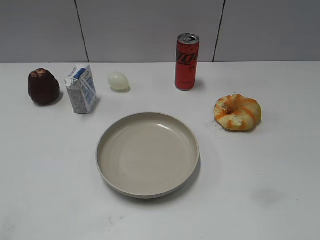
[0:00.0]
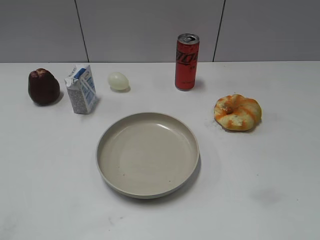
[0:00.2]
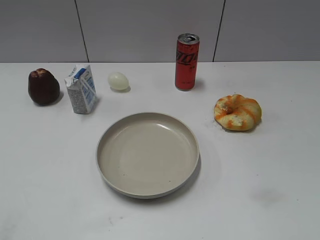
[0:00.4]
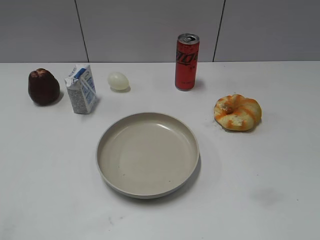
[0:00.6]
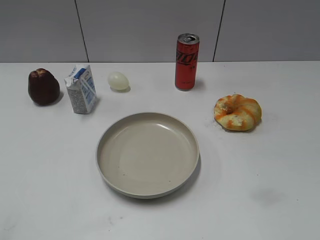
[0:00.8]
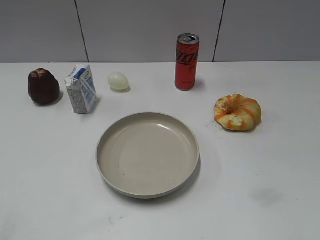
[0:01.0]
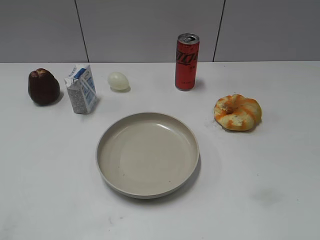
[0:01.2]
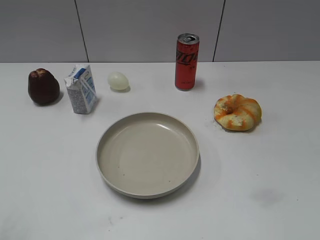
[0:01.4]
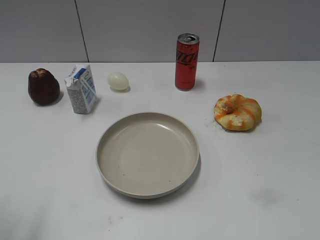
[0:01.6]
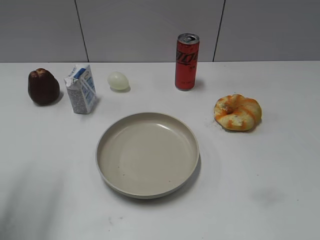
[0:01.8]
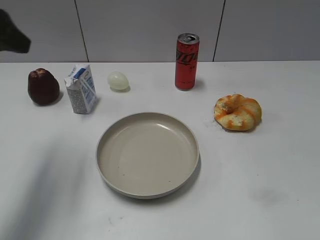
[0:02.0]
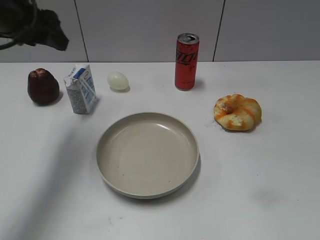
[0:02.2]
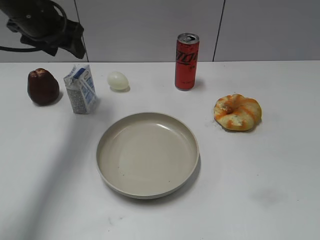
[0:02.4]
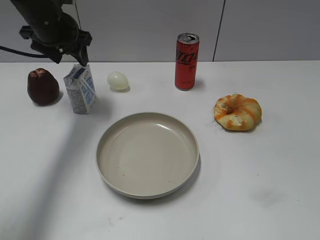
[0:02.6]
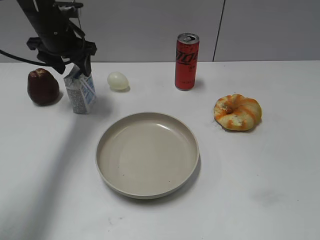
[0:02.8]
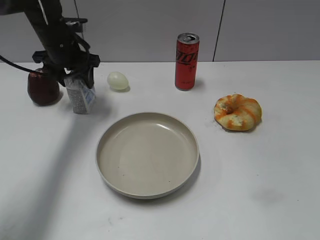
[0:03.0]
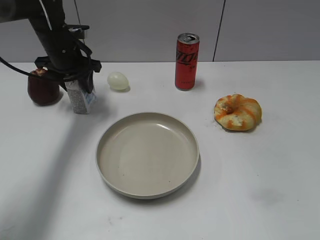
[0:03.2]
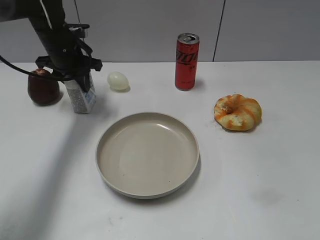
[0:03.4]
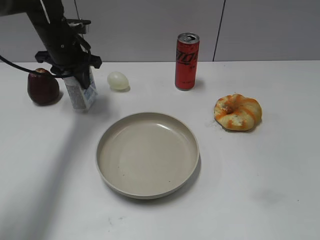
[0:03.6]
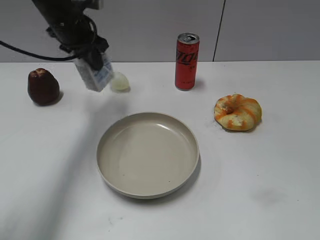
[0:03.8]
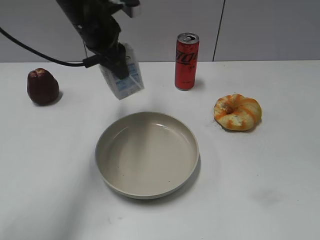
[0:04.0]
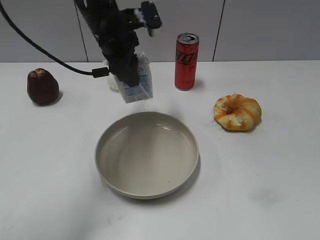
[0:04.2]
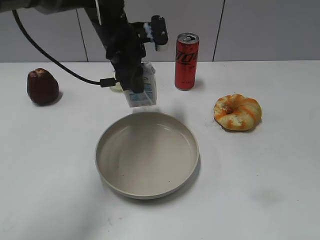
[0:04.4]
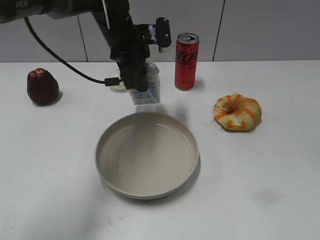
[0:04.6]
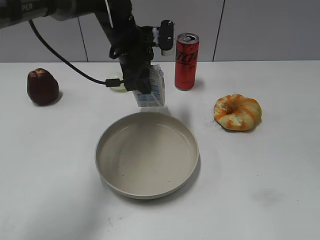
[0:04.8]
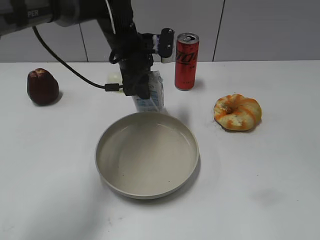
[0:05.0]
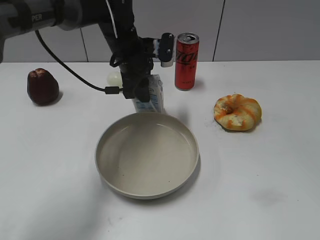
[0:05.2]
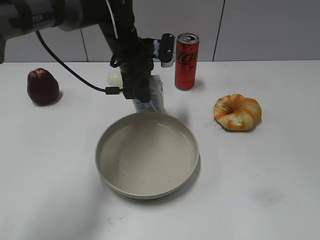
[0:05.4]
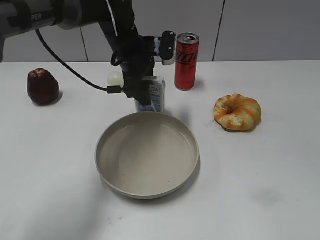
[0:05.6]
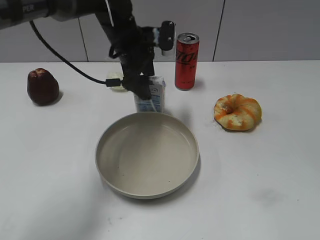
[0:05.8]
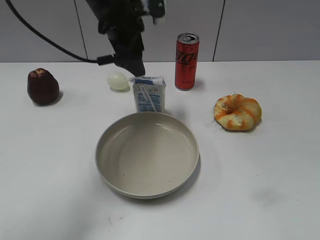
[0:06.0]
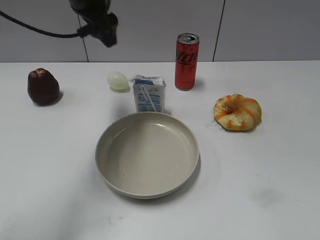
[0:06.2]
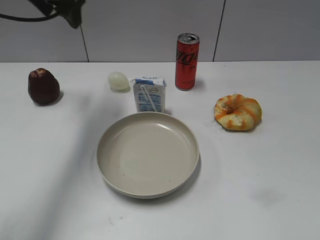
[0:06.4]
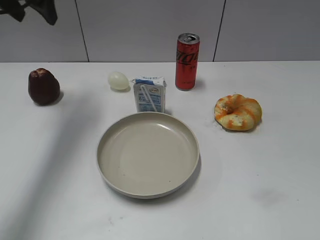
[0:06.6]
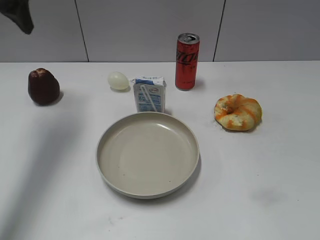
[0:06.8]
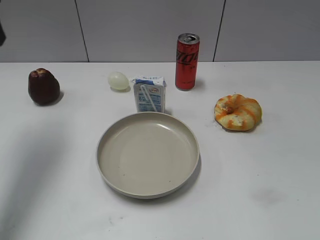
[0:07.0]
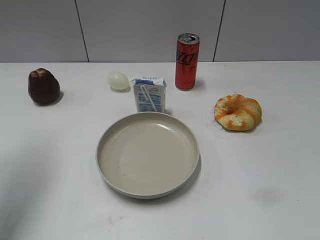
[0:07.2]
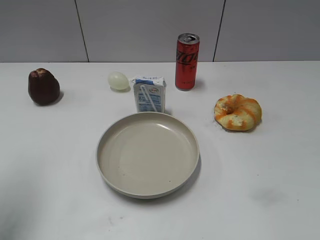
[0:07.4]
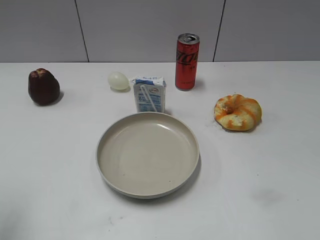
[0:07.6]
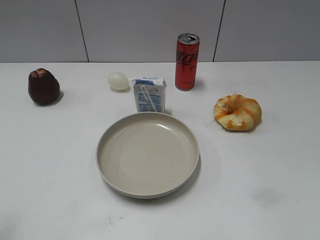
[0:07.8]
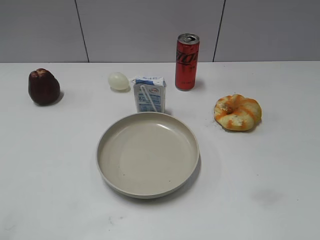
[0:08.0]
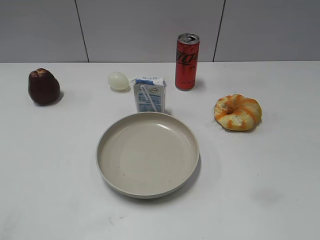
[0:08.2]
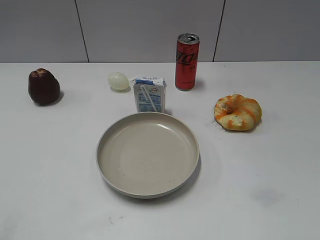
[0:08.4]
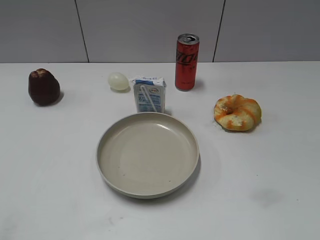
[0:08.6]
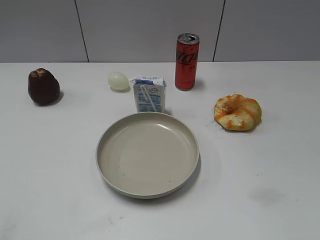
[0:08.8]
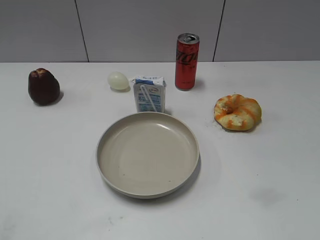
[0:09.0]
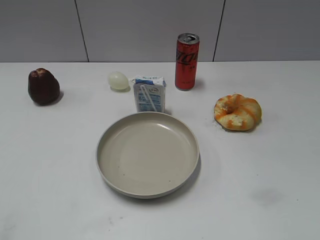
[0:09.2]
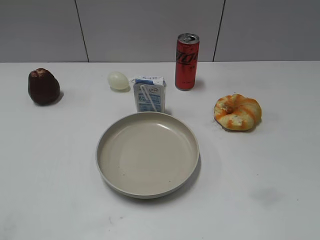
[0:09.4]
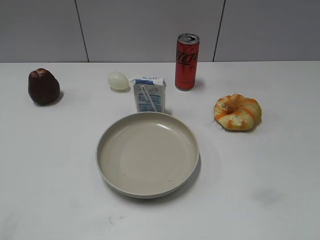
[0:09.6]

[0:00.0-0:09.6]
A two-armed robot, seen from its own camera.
Step, 0:01.0 to 0:03.4: Grasp the milk with left gripper.
Step, 0:03.6 to 0:05.8: Place the milk on the table with left gripper.
0:01.6 to 0:03.2: The left gripper moves forward, some 35 cm.
0:03.2 to 0:04.8: The left gripper shifts about 15 cm to the right, and closes.
0:04.8 to 0:06.4: The left gripper travels to the left and upward by approximately 20 cm, and opens its fingers.
0:06.4 to 0:08.0: The left gripper goes approximately 40 cm backward.

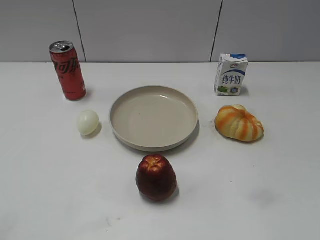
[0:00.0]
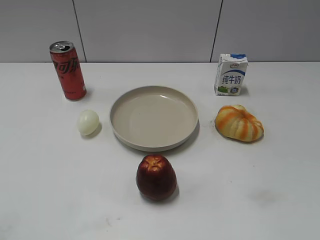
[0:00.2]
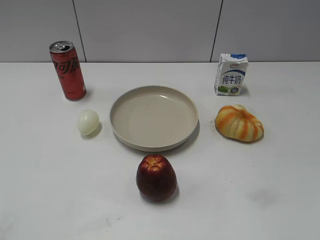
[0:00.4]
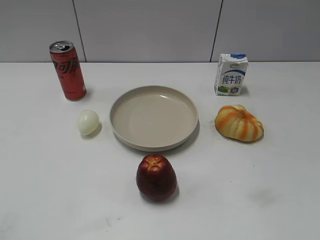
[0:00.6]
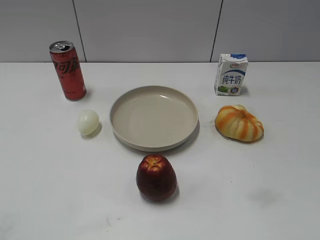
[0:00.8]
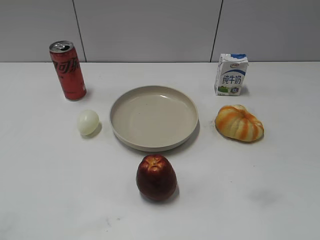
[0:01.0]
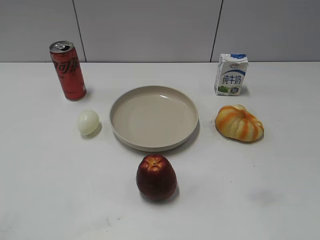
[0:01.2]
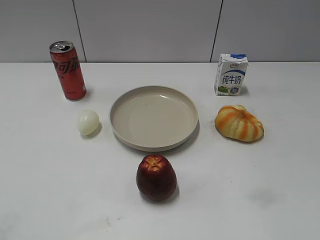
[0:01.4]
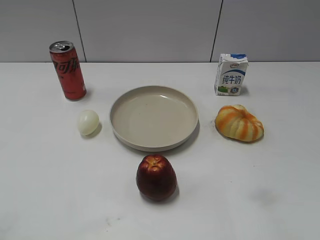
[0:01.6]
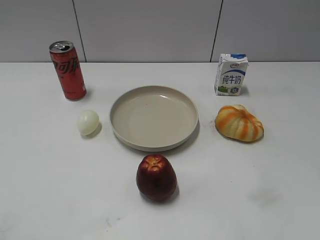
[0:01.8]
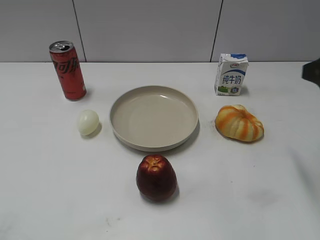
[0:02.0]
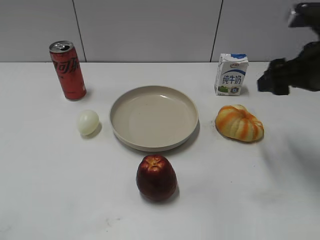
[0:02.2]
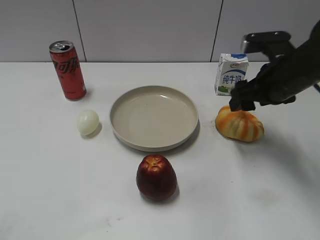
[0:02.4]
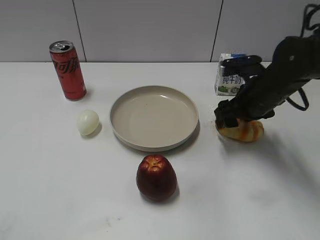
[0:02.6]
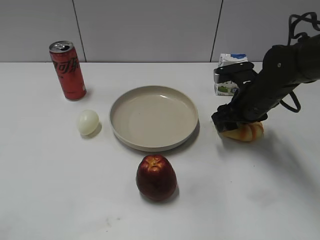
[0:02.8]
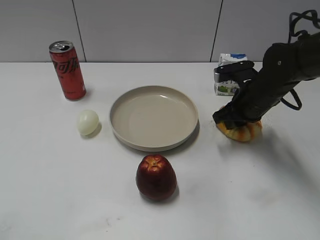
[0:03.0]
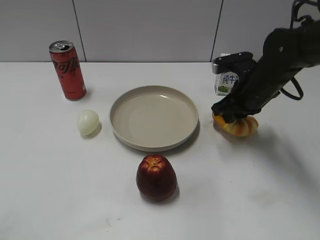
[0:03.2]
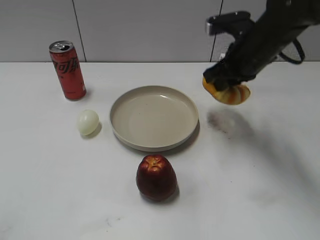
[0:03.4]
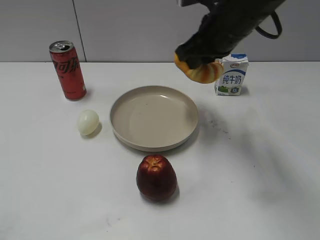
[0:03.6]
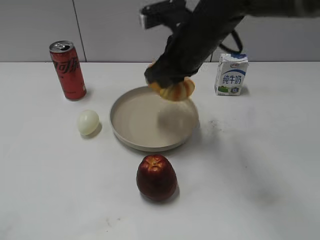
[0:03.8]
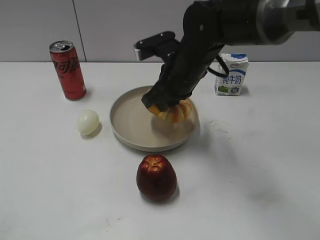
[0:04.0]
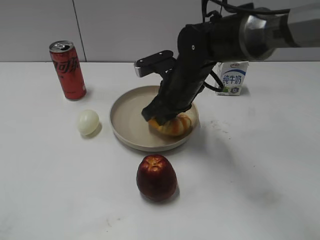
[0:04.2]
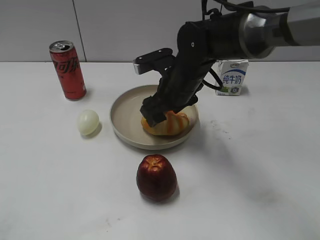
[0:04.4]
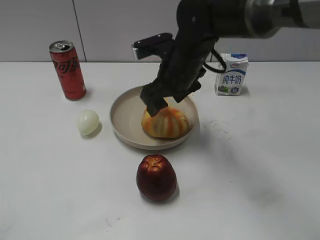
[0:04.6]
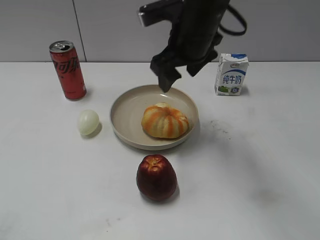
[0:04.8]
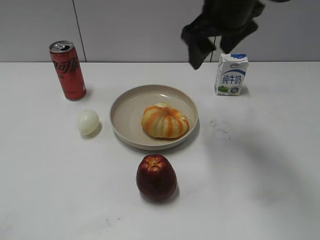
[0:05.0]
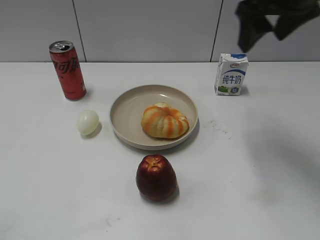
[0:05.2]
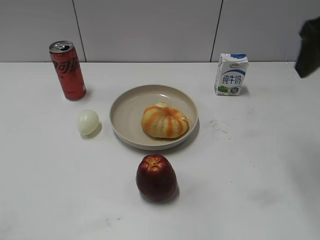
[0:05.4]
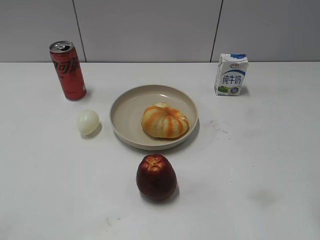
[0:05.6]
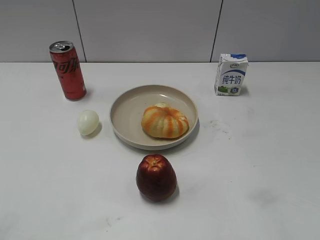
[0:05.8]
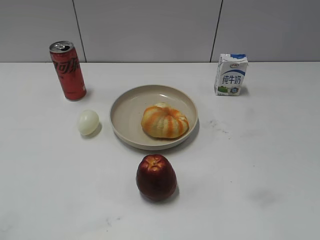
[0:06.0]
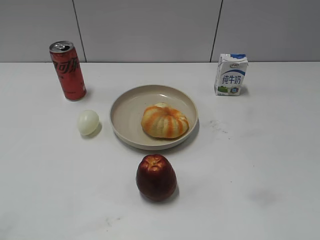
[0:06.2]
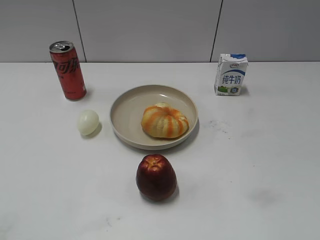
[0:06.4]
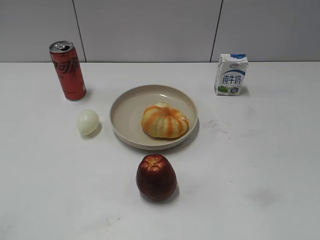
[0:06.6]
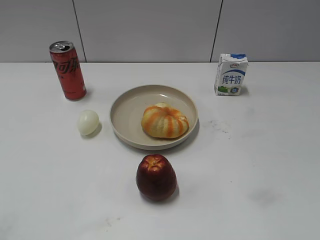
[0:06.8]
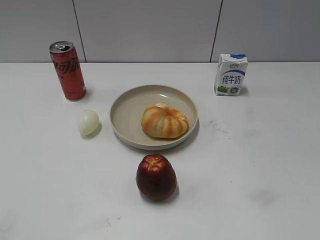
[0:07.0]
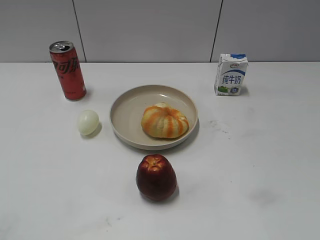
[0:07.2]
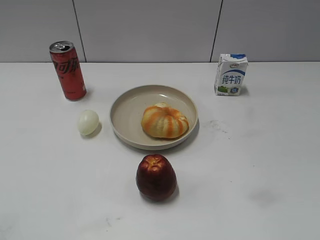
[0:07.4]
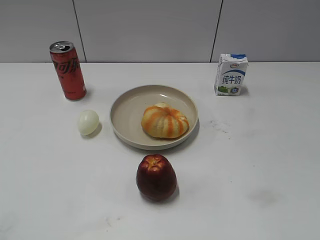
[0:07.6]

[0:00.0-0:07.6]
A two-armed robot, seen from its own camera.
Step, 0:01.2 to 0:03.0: Grasp the round bread with right gripper.
Step, 0:03.2 to 0:04.6: Place the round bread on the plate with right gripper.
0:01.6 to 0:03.0: The right gripper heads forward, downward and to the left, covering some 35 cm, and closes up.
0:03.0 to 0:04.6: The right gripper heads to the left and upward, covering approximately 15 cm, and opens.
0:04.6 to 0:06.0: The right gripper is displaced backward and to the right by approximately 40 cm.

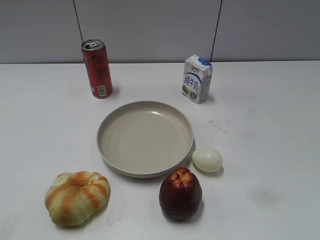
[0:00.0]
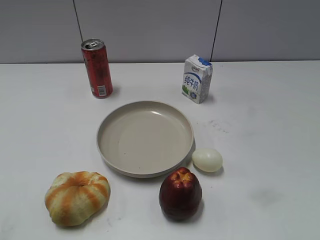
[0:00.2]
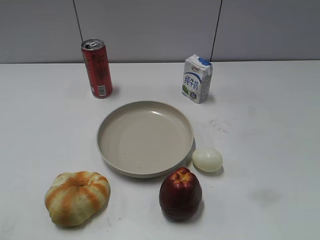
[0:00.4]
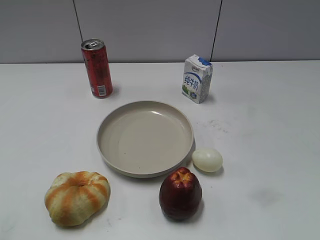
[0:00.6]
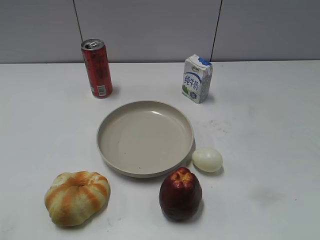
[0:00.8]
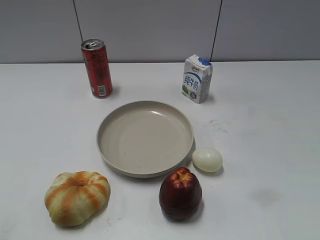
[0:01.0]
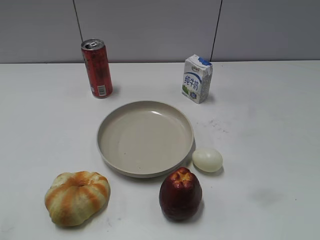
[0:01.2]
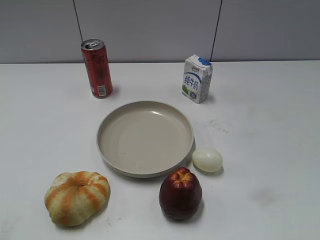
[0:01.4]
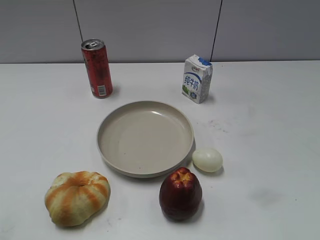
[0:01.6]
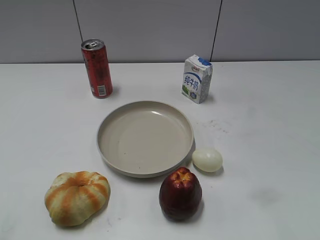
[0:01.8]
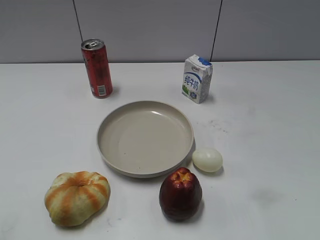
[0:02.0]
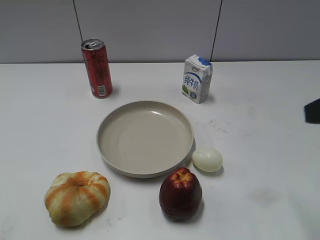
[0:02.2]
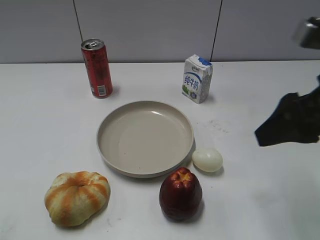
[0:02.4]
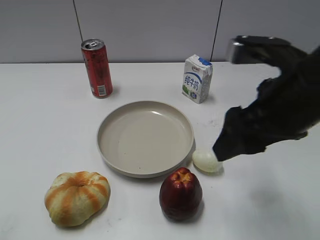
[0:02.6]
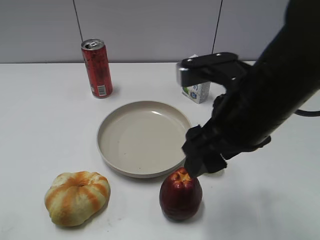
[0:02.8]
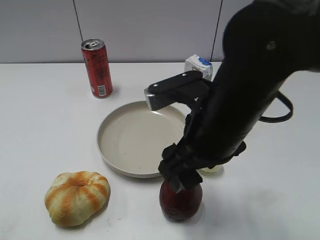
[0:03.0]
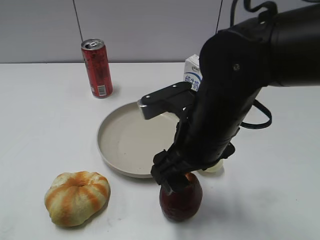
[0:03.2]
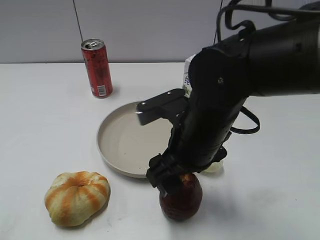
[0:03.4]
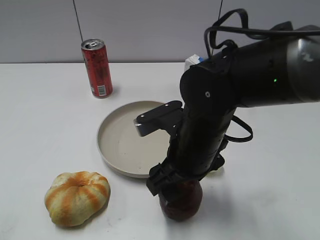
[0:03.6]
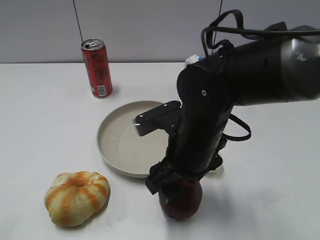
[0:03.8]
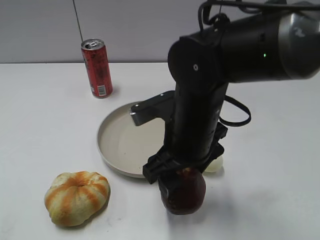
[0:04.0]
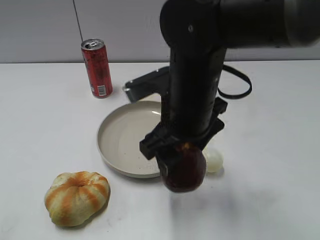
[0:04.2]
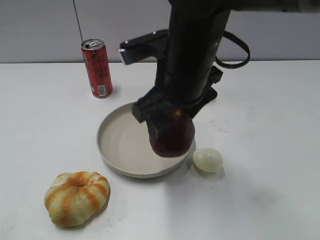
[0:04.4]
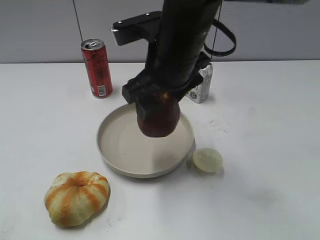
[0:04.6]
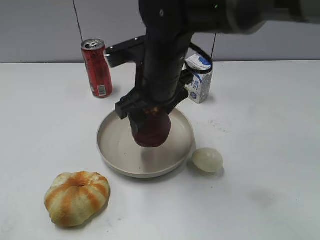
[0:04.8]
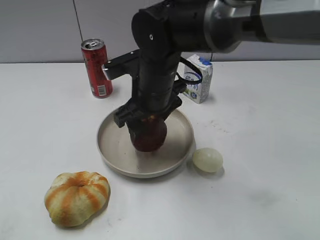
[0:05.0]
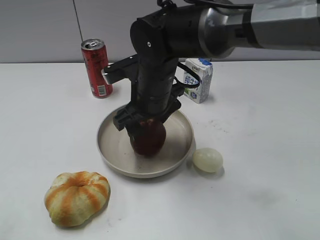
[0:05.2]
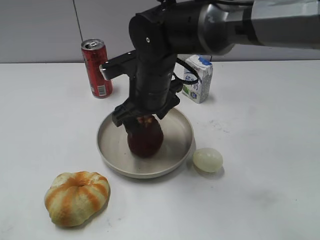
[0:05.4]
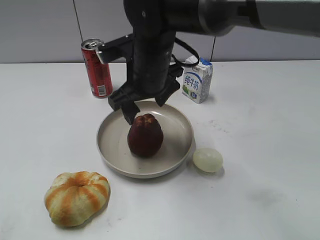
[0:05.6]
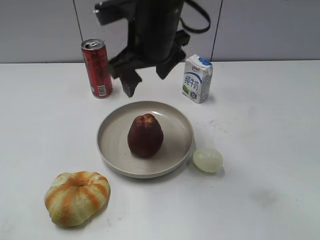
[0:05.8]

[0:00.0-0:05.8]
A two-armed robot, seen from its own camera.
Step, 0:01.4 to 0:03.6: Grasp the apple with right gripper.
Step, 0:04.0 to 0:05.6: Place the apple on the plate with right gripper.
0:01.4 to 0:02.8: The right gripper heads forward and to the left, covering approximately 30 cm.
0:02.8 to 0:04.4: The right gripper shifts approximately 10 cm to the left and forward, goes downward and returns, some 10 cm each way, and opens, then closes once more.
0:04.4 to 0:05.8: The right gripper moves forward, approximately 5 cm, travels downward and back again, about 10 cm each way, and opens.
